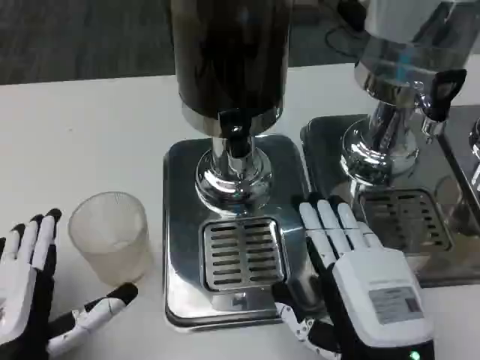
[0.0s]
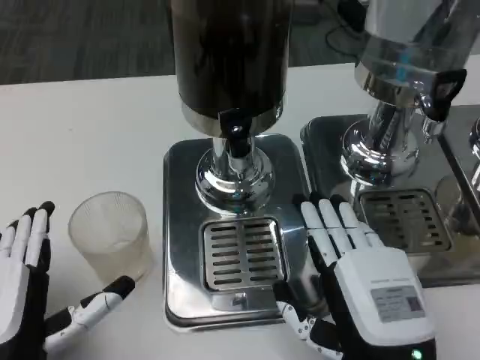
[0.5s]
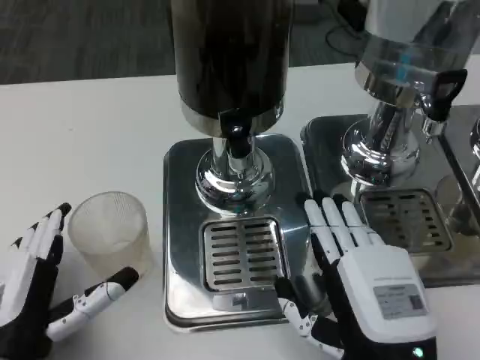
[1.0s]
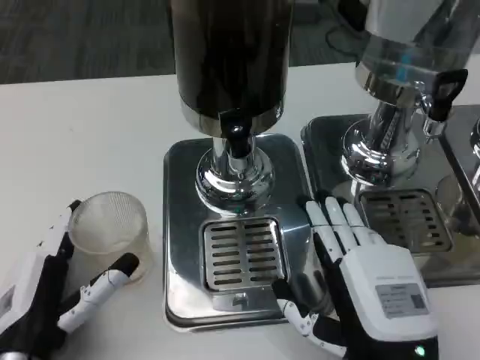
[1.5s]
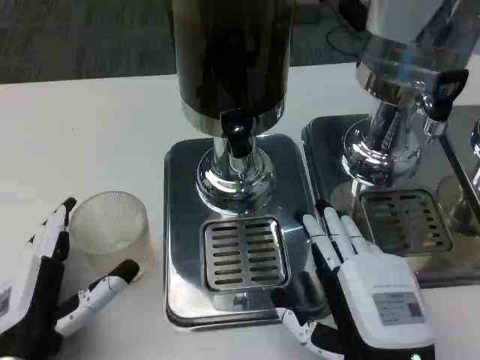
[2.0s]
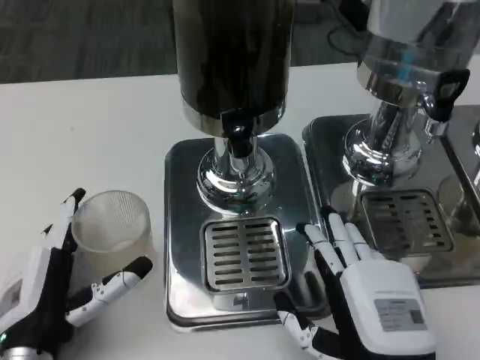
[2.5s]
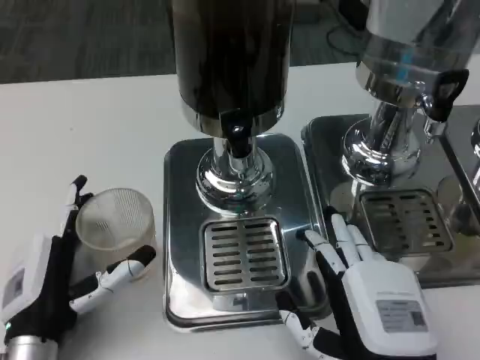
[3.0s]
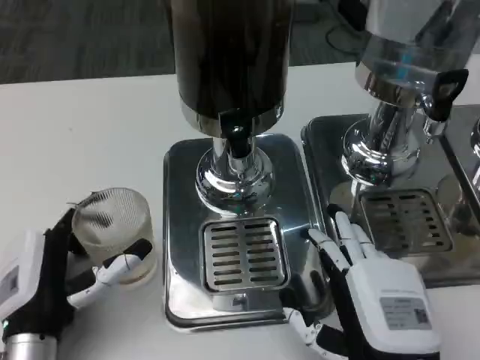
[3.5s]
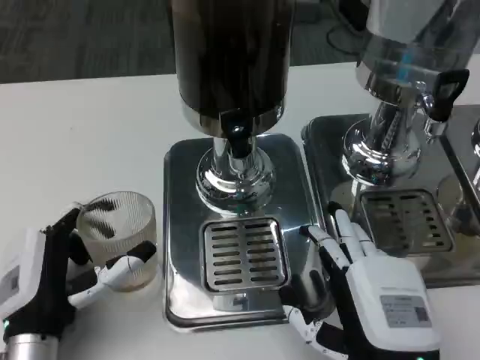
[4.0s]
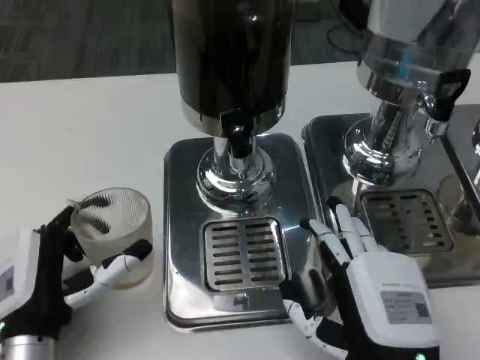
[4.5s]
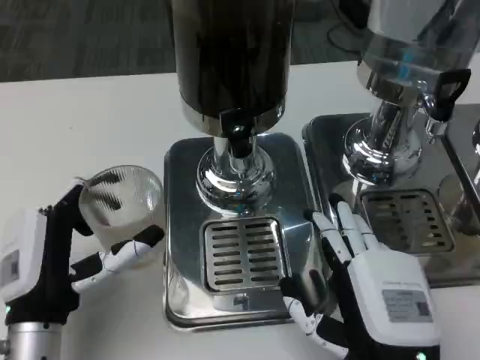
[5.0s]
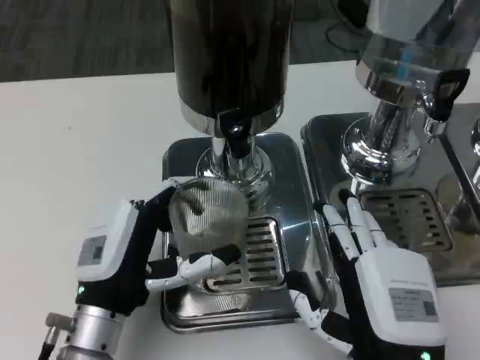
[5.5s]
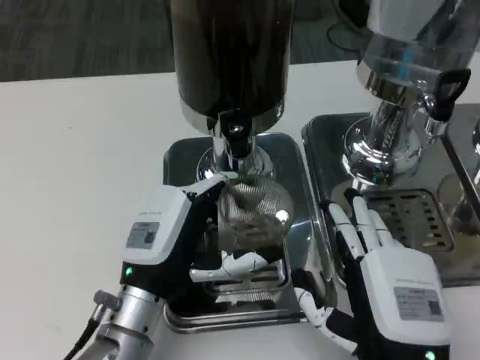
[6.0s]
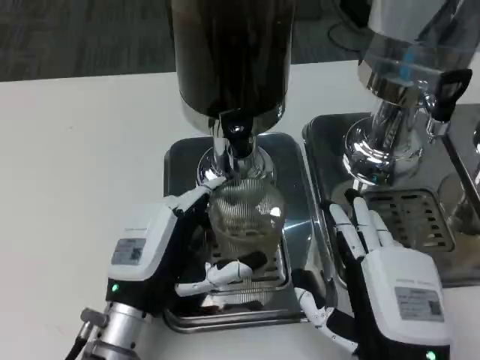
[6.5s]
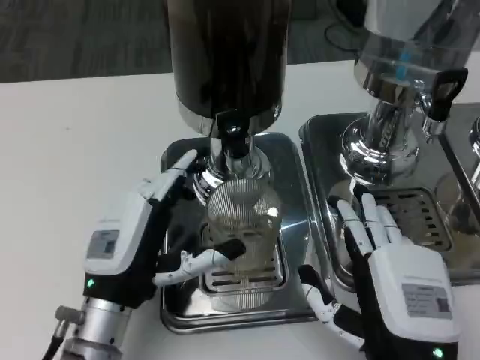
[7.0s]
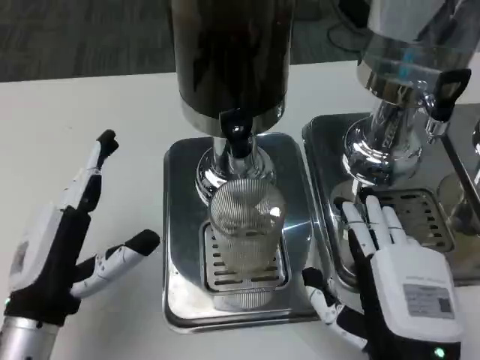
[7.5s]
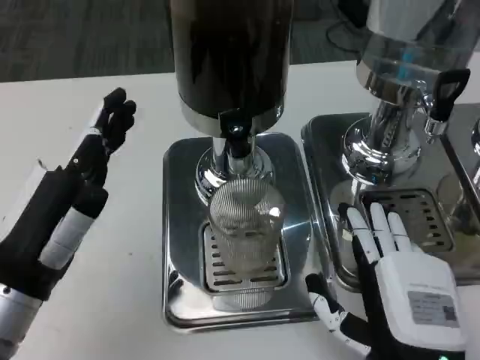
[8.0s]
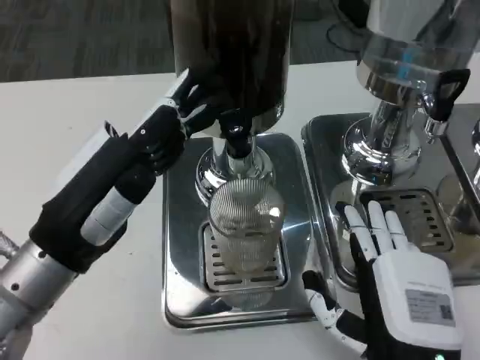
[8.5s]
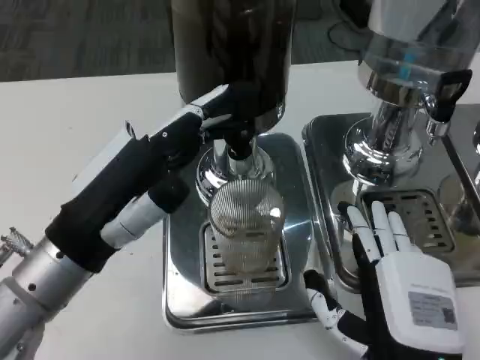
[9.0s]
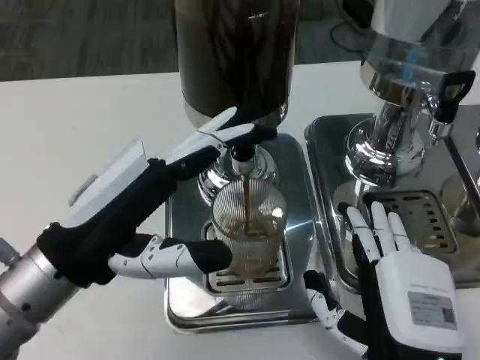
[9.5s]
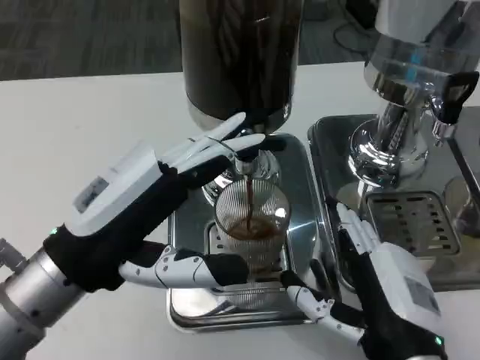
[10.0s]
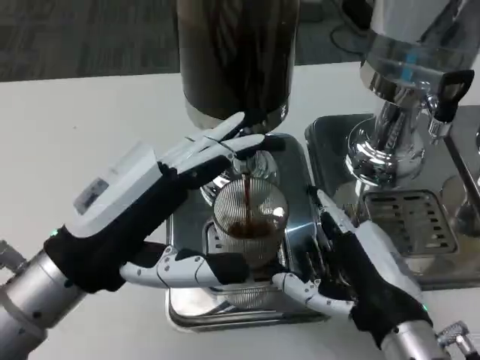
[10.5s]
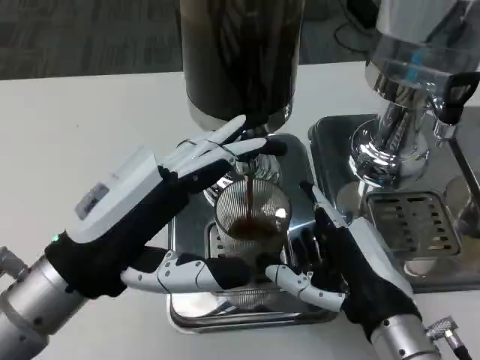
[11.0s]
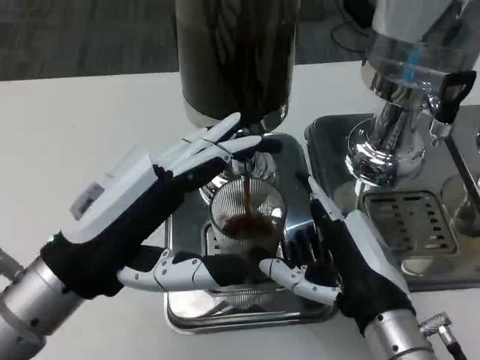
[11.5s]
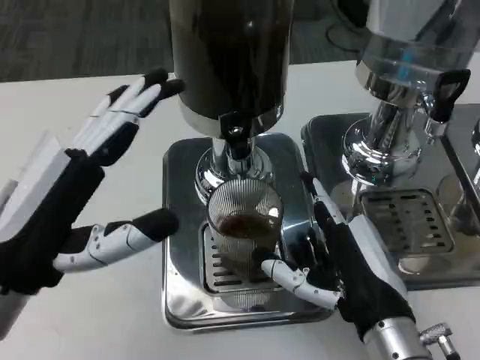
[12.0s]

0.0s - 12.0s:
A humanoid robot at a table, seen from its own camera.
Task of the whole recording: Grasp the cup under the faucet to collect the drink, then remove the cup.
2.0s - 4.0s: The hands move only a little.
4.0s - 6.0s: The left hand travels to the right by some 10 cm.
6.0s - 8.0s: The left hand shifts roughly 15 cm to the left and upward.
8.0s - 10.0s: The left hand goes approximately 5 cm upward.

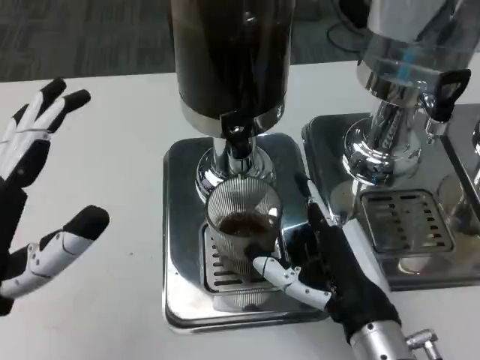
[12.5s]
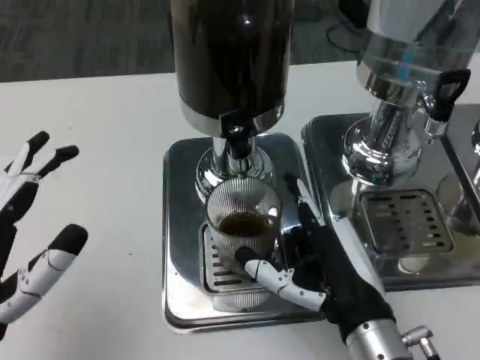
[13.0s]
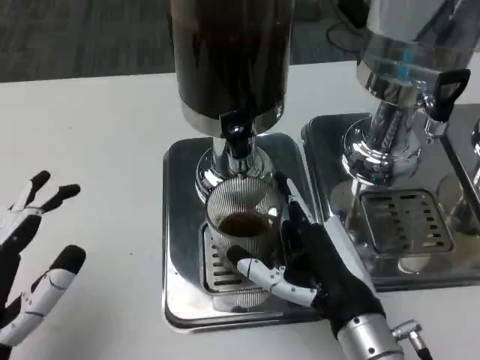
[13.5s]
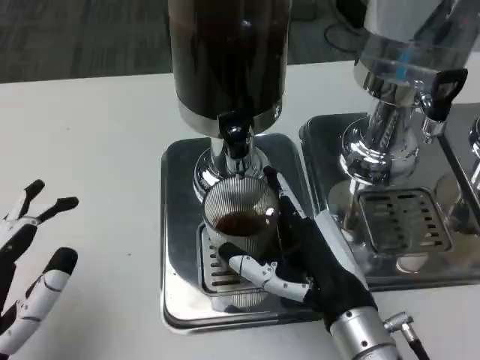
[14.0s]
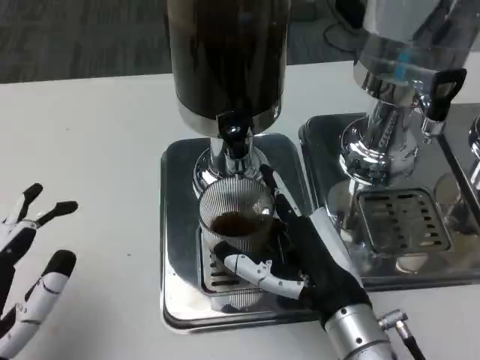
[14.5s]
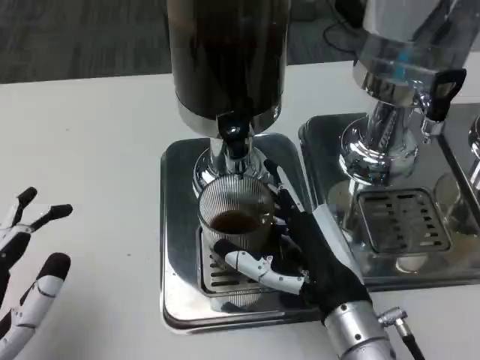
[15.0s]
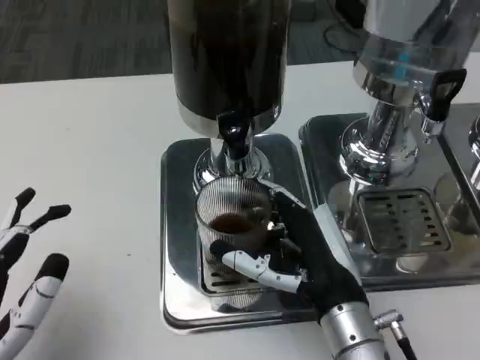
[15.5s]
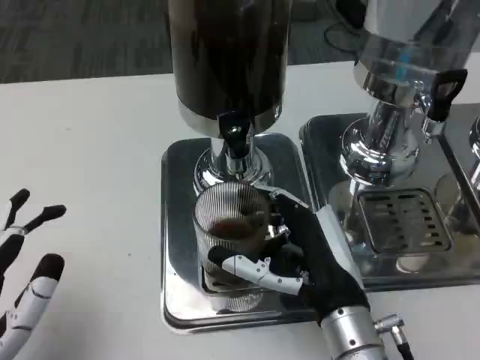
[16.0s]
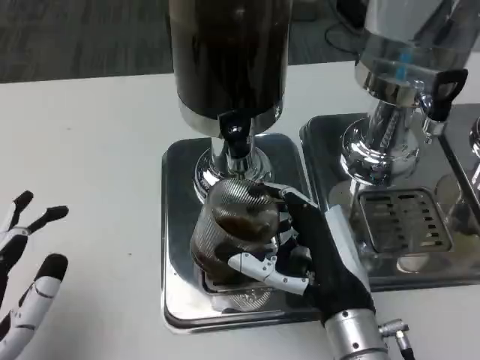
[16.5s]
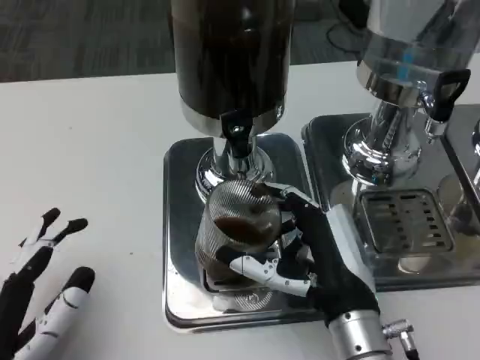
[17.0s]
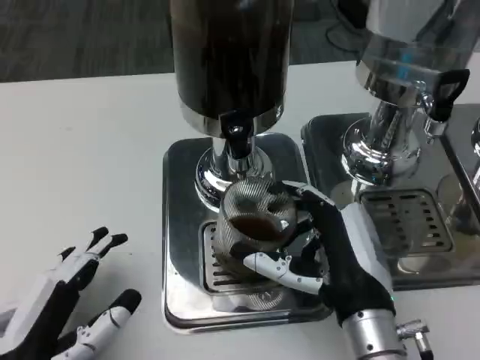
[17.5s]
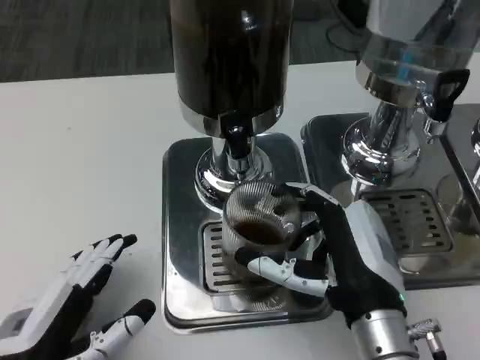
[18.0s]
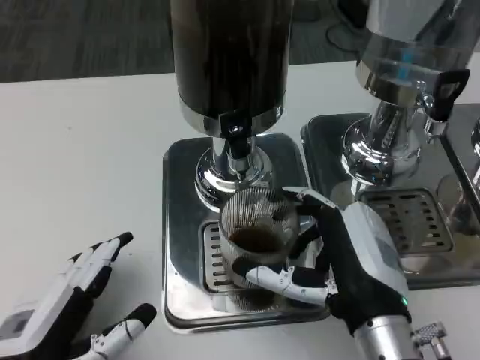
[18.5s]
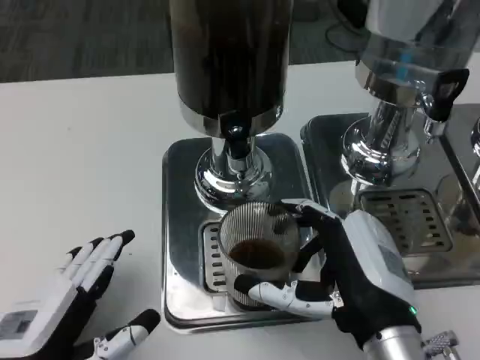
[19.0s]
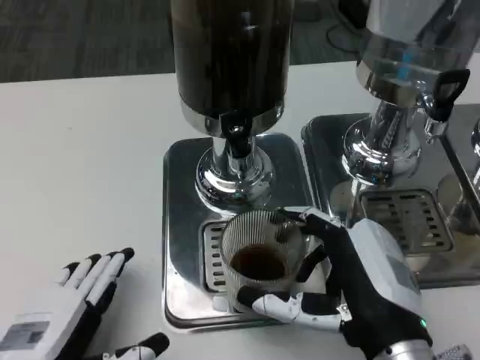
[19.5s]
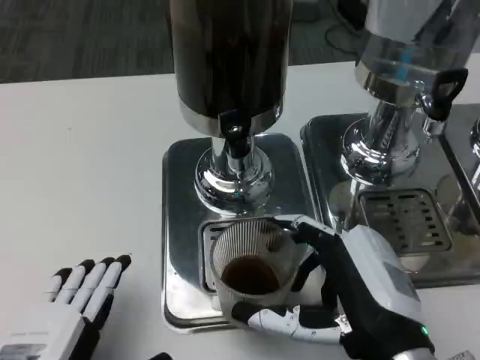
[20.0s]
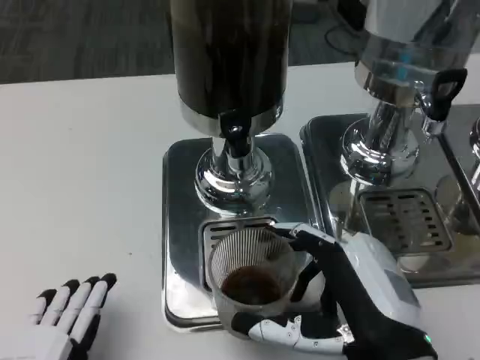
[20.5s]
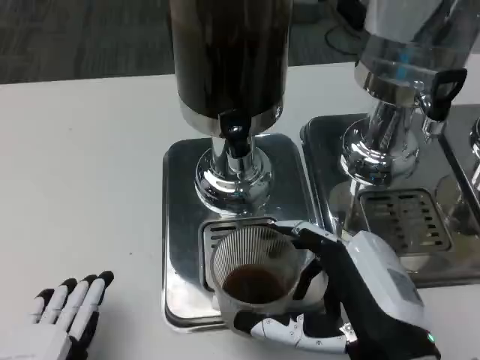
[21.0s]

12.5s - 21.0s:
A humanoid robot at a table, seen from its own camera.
Task of the whole recording: Grasp the cup under the faucet to collect the drink, then remove the cup.
12.5s - 14.5s: The left hand goes about 5 cm downward.
14.5s - 16.5s: The hands move only a little.
16.5s - 19.0s: The right hand changes place by some 5 cm.
19.0s - 21.0s: The left hand goes roughly 5 cm backward.
